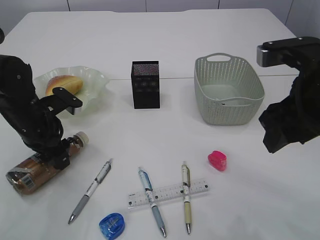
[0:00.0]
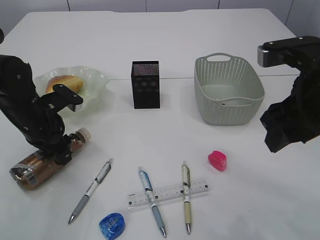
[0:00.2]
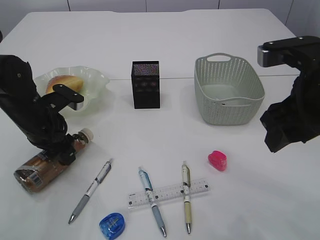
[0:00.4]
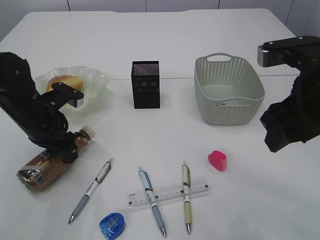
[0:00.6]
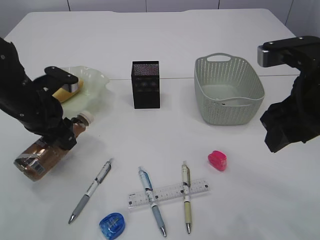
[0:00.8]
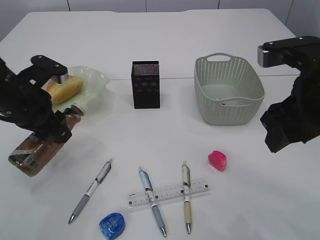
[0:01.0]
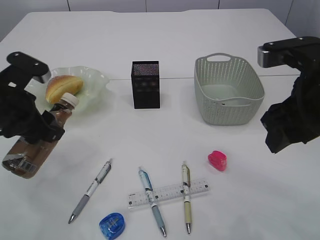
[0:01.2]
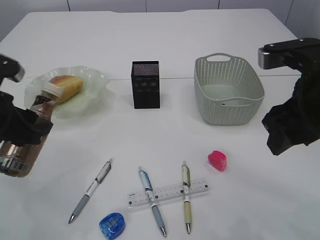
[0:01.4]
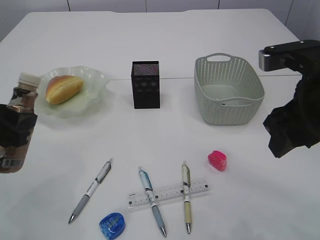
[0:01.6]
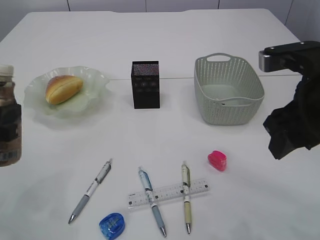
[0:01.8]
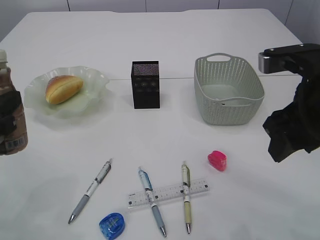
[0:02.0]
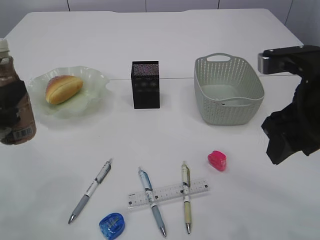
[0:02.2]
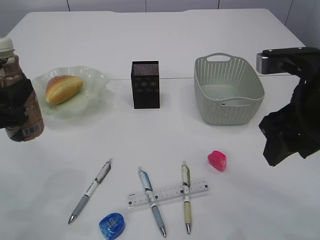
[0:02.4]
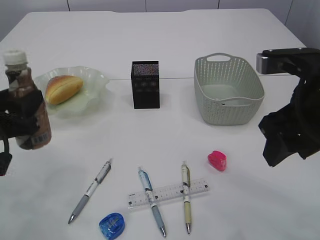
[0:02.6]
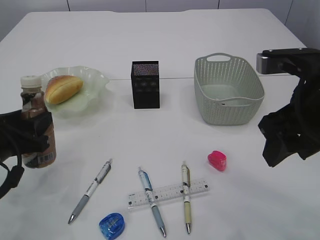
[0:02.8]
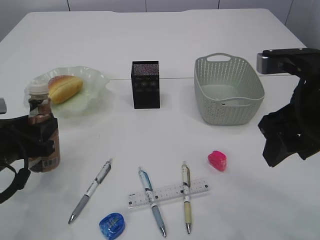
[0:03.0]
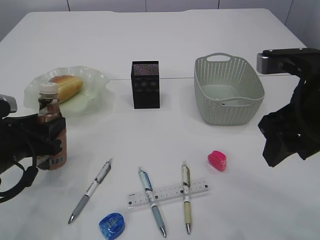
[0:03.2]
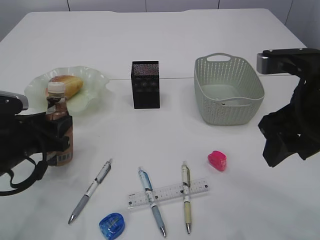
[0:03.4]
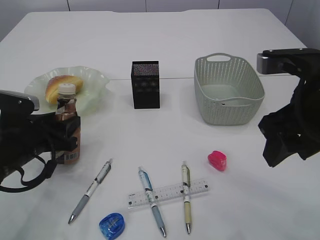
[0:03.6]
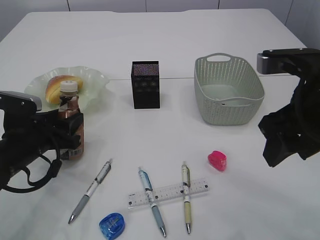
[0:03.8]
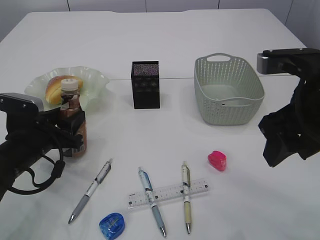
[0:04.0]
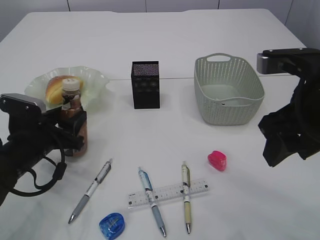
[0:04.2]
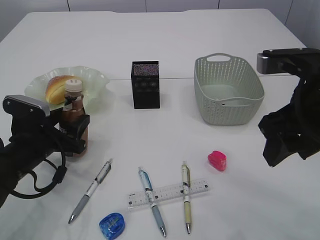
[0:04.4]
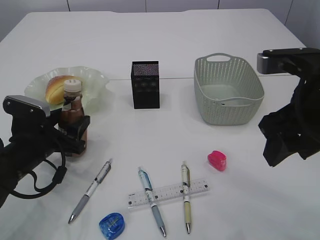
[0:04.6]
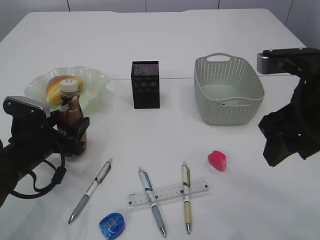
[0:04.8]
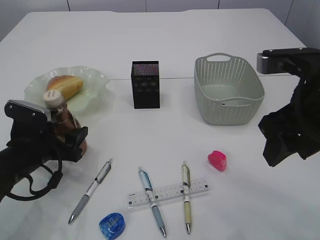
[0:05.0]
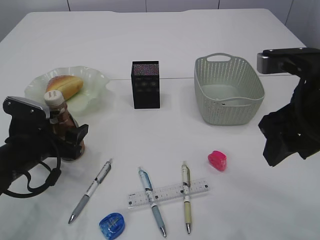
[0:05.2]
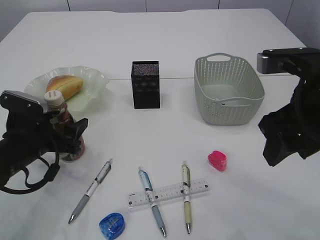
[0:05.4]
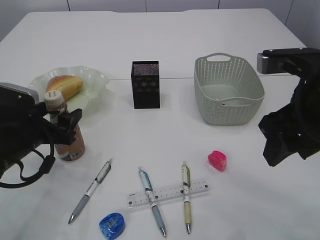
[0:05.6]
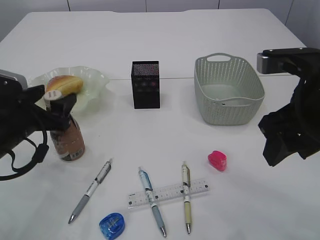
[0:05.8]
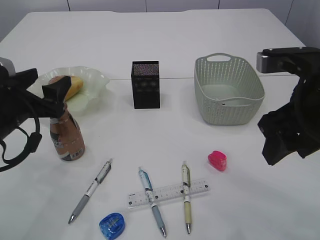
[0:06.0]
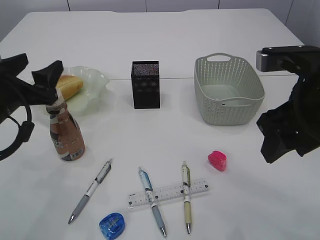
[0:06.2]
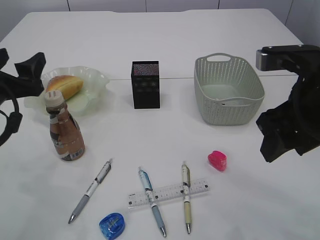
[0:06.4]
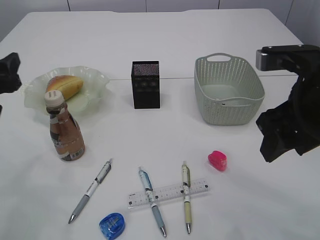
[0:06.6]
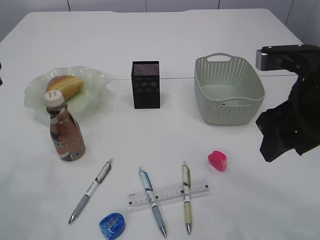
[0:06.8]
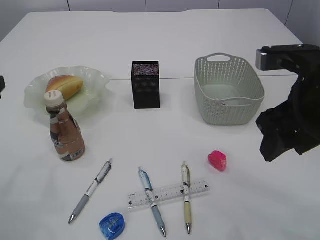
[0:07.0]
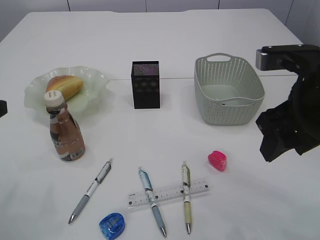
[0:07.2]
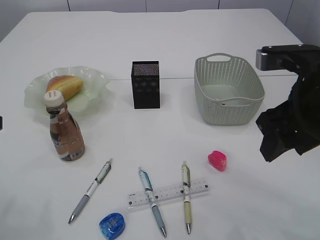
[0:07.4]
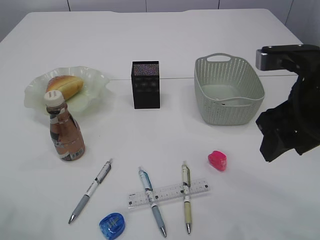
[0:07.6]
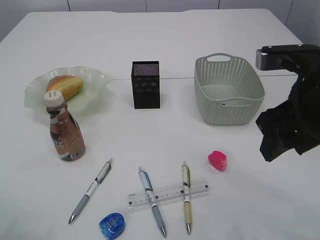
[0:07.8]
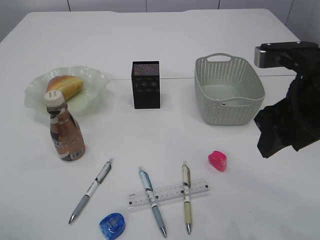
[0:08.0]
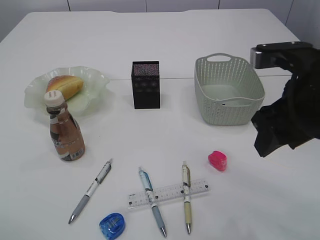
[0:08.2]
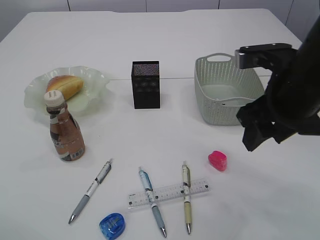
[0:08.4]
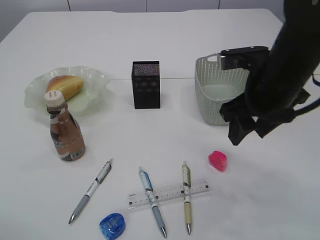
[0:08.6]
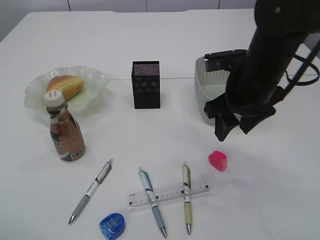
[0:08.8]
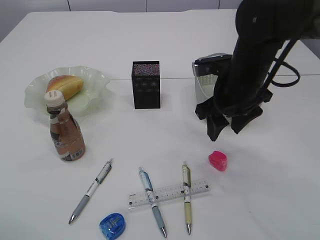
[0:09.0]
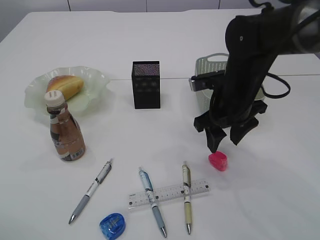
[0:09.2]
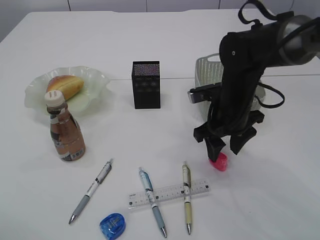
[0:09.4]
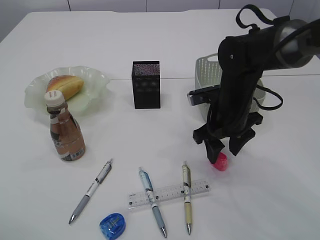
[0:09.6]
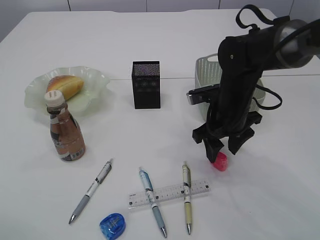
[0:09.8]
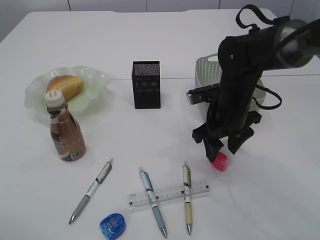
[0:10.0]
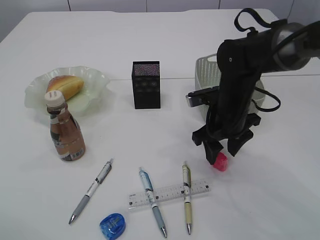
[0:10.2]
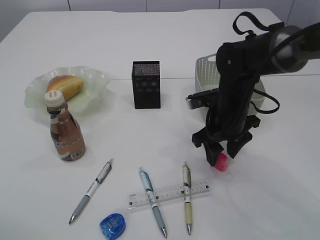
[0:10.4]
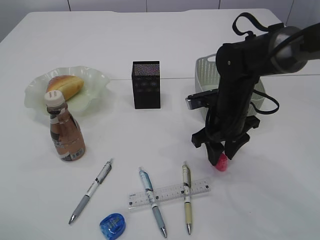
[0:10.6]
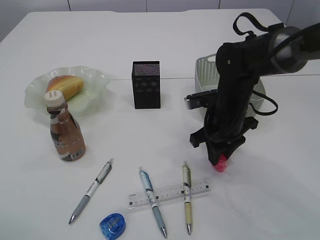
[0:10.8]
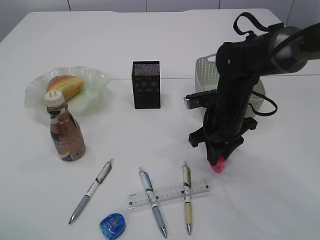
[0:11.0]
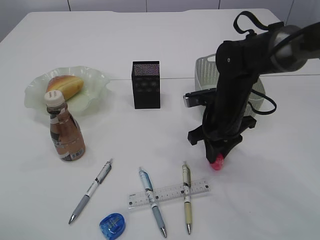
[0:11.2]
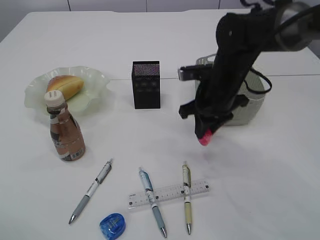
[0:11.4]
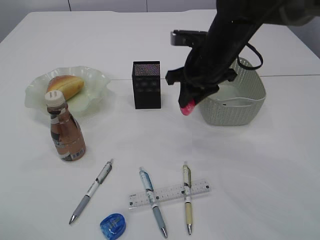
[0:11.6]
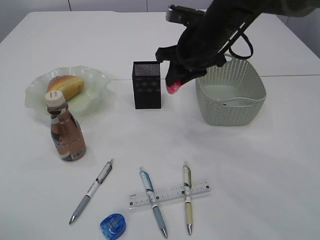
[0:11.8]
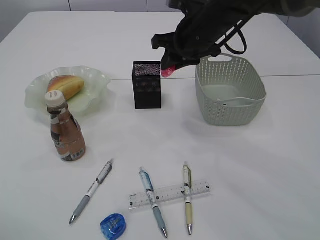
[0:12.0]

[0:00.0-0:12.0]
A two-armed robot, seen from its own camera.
Step, 0:01.0 to 0:06.4: Place the bottle.
Step, 0:06.6 to 0:11.4: Pick up the red pencil sharpener.
0:00.0 to 0:01.6: The left gripper travels backward and upward by about 15 cm.
0:01.6 to 0:03.0: The left gripper heads downward, covering approximately 10 cm.
0:03.0 to 0:04.4: The left gripper is displaced downward by some 5 cm.
0:04.4 to 0:06.0: The left gripper goes some 10 cm upward.
0:06.0 to 0:07.6: The left gripper heads backward, upward and to the left, covering some 15 cm.
0:07.6 to 0:09.0: The left gripper changes place by some 5 cm. The right gripper heads forward and downward, covering about 15 cm.
0:09.0 to 0:10.4: The right gripper is displaced downward by roughly 10 cm.
0:10.4 to 0:12.0: The right gripper is displaced upward and forward by roughly 15 cm, and closes.

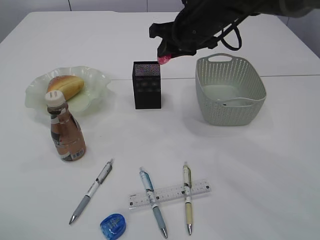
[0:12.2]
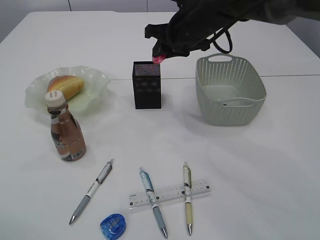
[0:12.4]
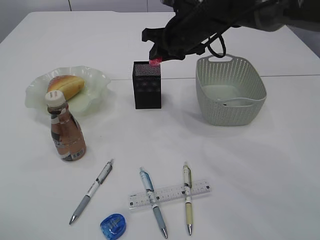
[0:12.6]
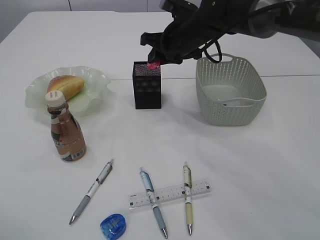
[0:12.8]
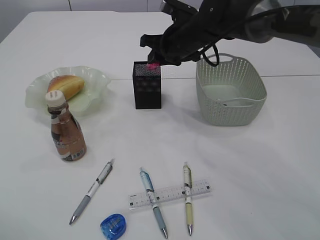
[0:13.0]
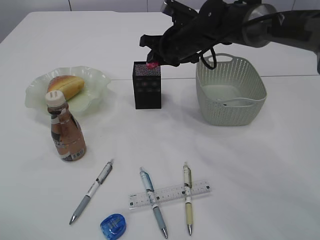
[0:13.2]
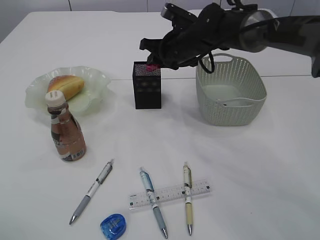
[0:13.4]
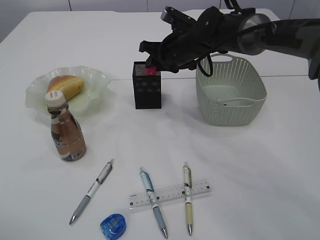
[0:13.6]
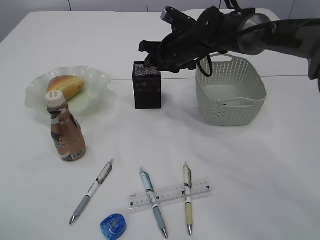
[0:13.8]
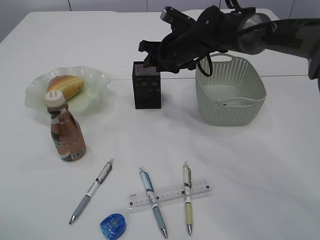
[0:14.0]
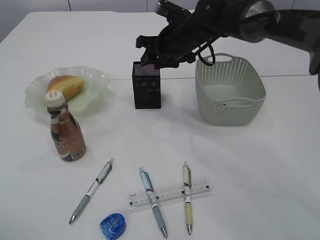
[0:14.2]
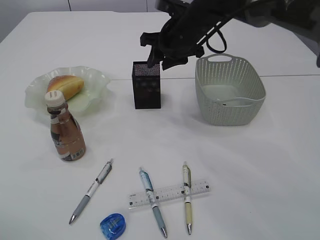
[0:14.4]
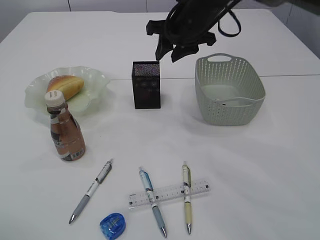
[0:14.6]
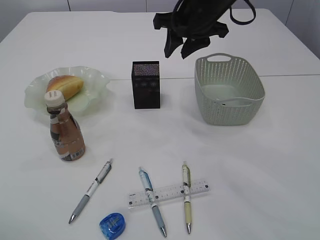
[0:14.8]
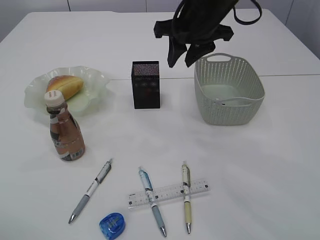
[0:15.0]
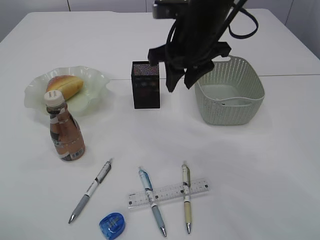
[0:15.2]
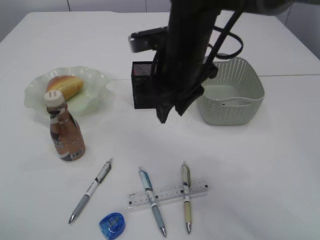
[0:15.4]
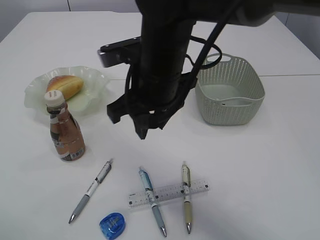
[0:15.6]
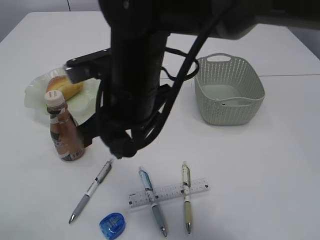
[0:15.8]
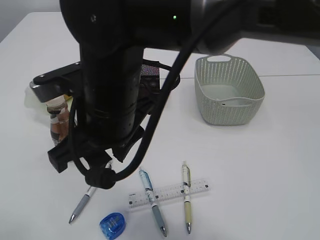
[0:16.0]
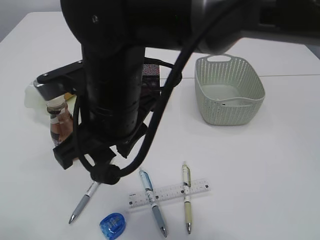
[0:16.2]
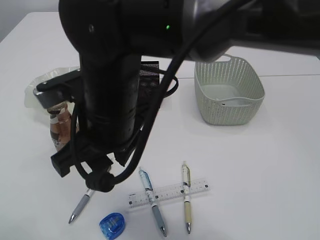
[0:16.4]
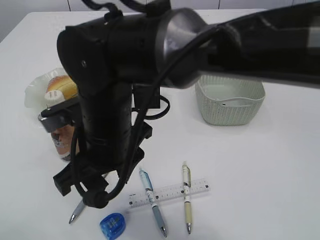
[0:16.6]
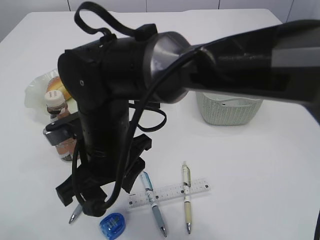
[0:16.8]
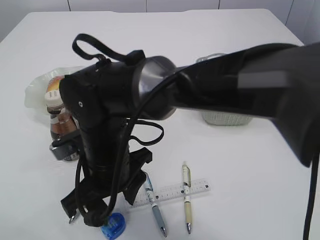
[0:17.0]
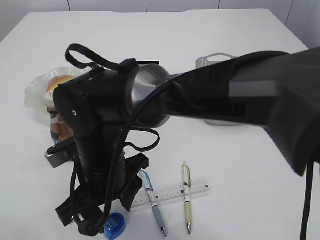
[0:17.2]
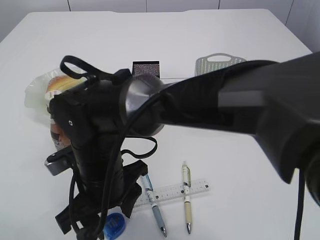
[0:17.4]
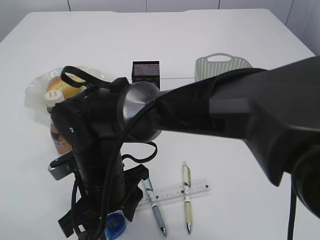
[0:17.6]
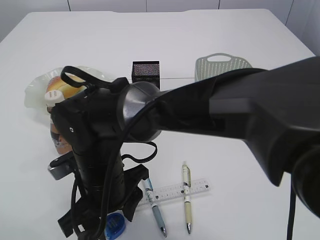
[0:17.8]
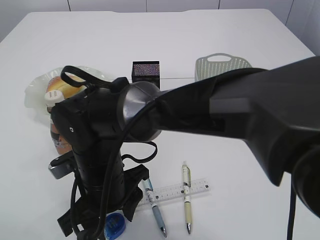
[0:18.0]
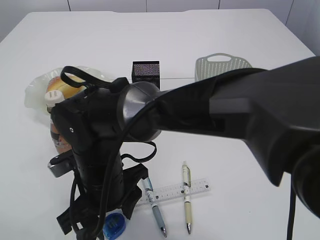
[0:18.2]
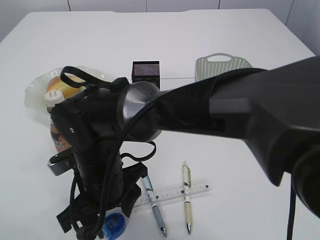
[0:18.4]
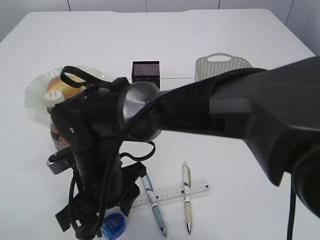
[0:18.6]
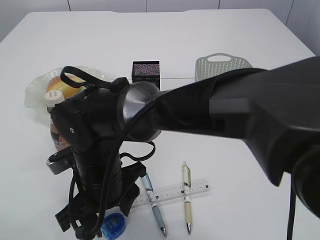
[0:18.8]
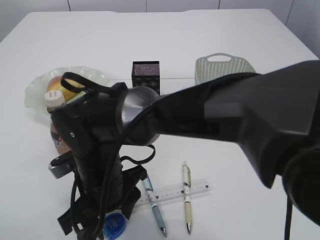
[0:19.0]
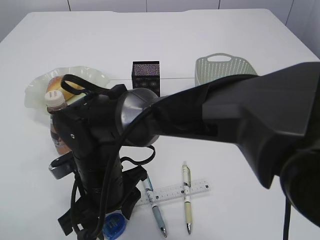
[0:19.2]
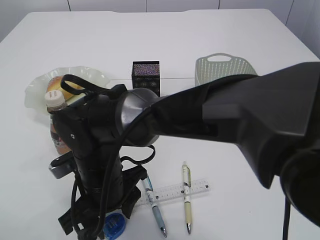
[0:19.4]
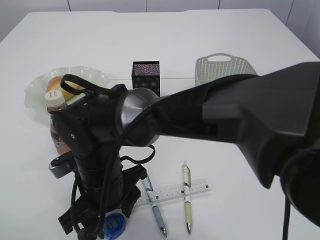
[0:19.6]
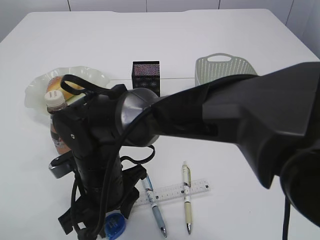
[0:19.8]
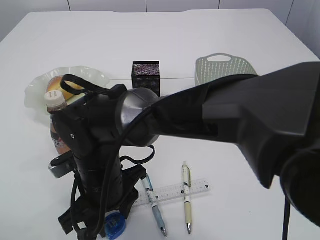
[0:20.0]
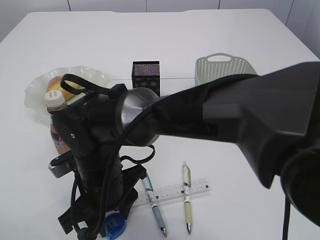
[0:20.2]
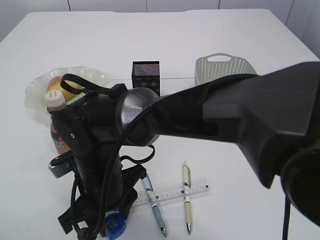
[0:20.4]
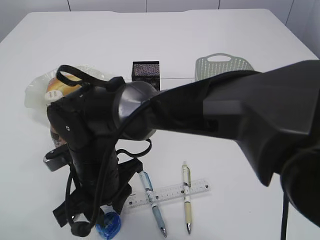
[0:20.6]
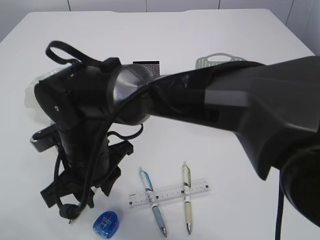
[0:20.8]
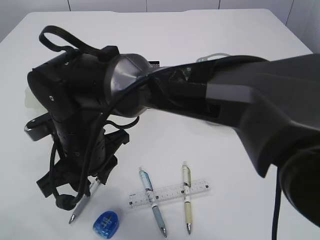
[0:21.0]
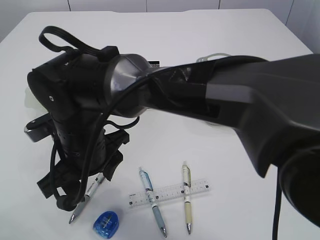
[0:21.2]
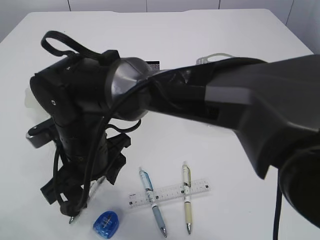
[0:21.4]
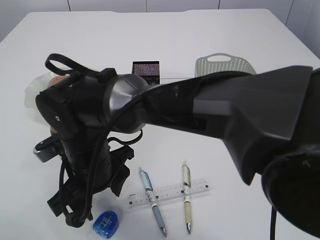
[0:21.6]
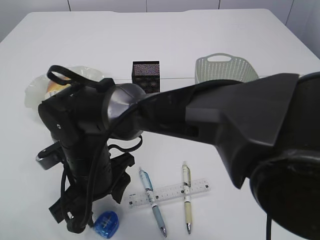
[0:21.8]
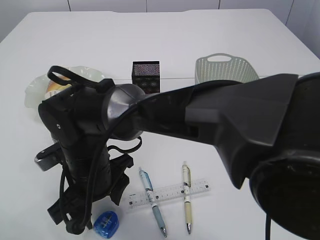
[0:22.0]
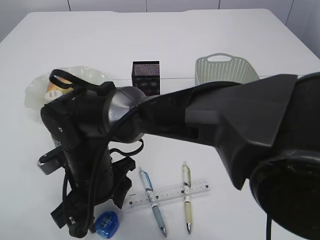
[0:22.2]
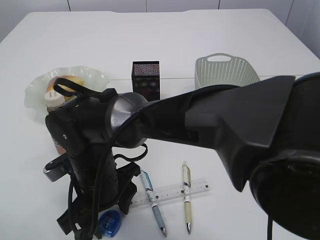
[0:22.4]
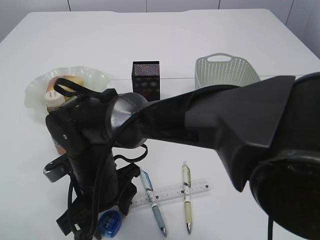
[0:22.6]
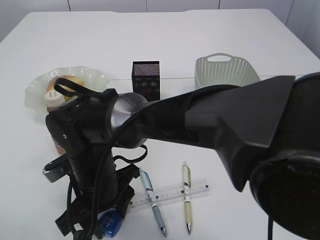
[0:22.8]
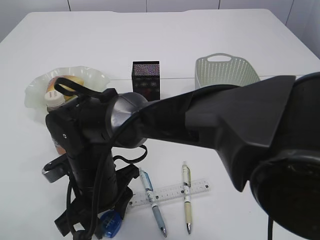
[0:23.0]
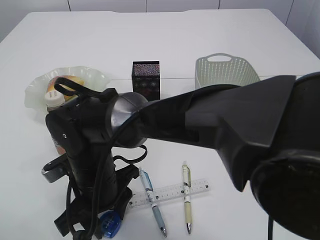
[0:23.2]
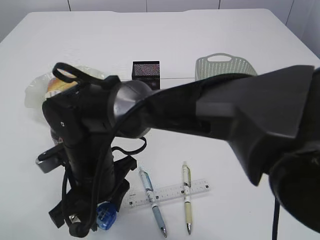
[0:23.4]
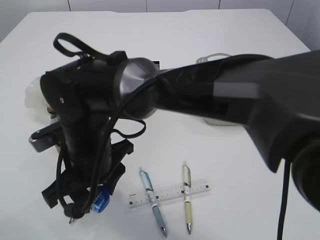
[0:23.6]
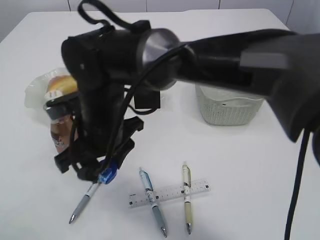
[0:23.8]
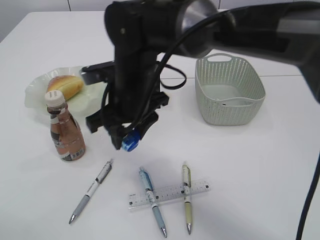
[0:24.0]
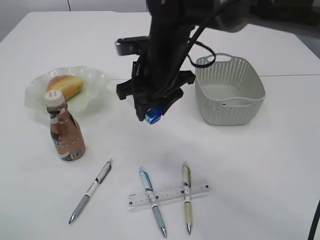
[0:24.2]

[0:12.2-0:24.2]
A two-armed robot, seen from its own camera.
Step, 0:12.2 to 0:14.2: Place the red pencil sharpener into the pen holder.
Step, 0:14.4 to 0:23.8: Pick up the blue pencil sharpener.
0:12.2 to 0:13.8: The right gripper heads downward and forward, covering about 10 cm.
0:13.8 to 0:15.2: The right gripper travels backward and upward by some 15 cm.
0:15.2 to 0:16.6: The right gripper heads to the left, backward and downward, covering some 20 cm.
0:16.6 to 0:18.2: The right gripper is displaced downward by approximately 10 cm.
0:18.2 to 0:19.8: Both grippers stay about where they are.
0:19.8 to 0:21.2: The right gripper travels upward by about 5 cm.
0:21.2 to 0:22.6: The right gripper travels downward by some 5 cm.
0:22.6 to 0:24.2: The right gripper shifts approximately 20 cm upward, forward and to the right.
